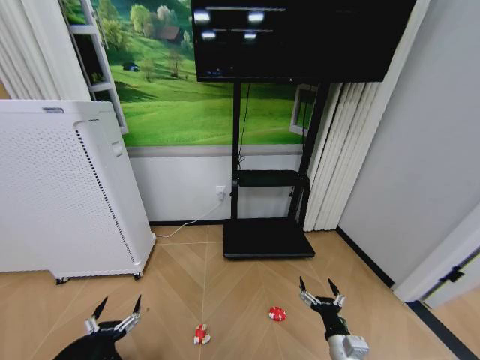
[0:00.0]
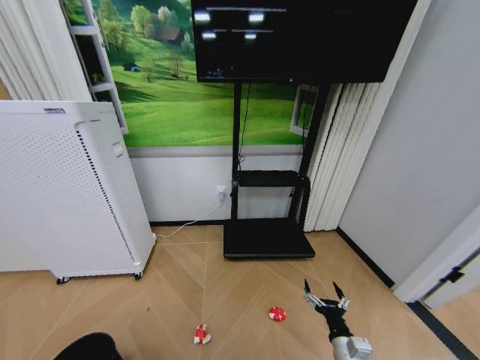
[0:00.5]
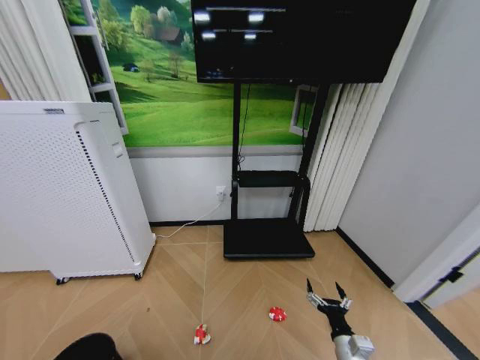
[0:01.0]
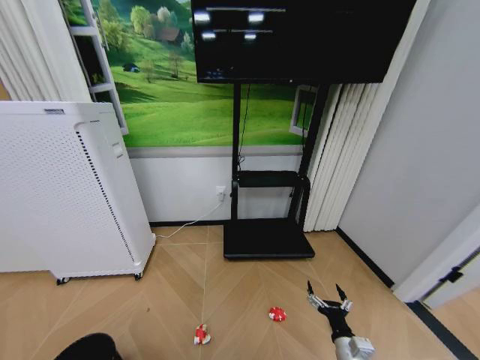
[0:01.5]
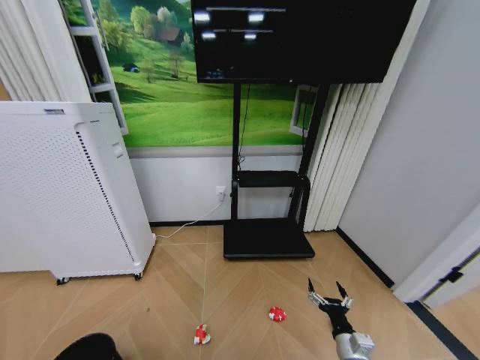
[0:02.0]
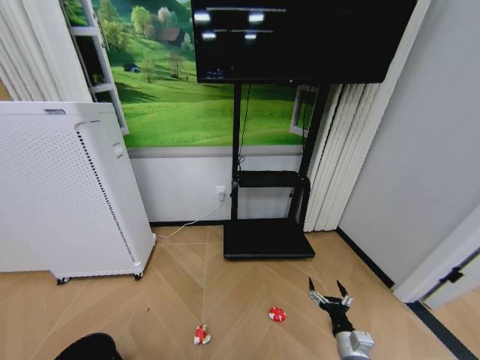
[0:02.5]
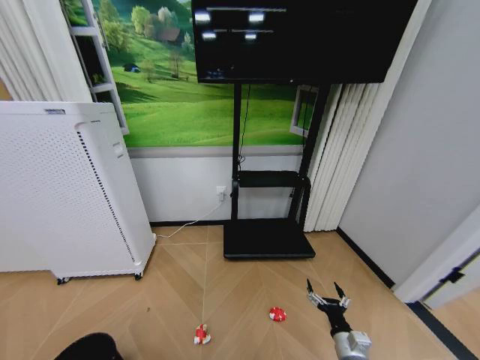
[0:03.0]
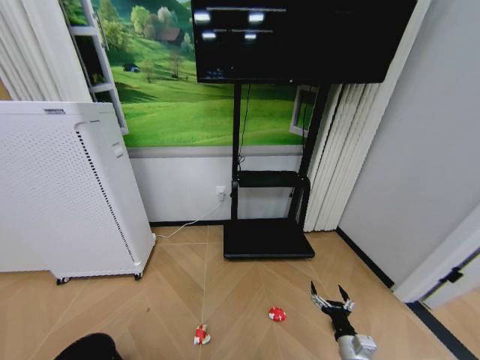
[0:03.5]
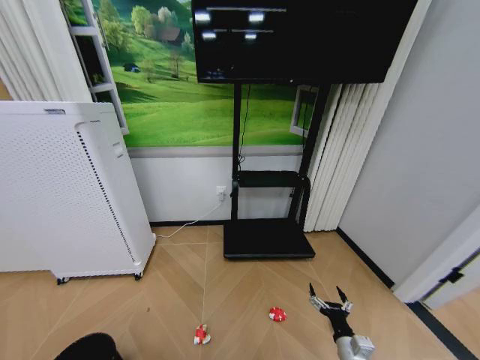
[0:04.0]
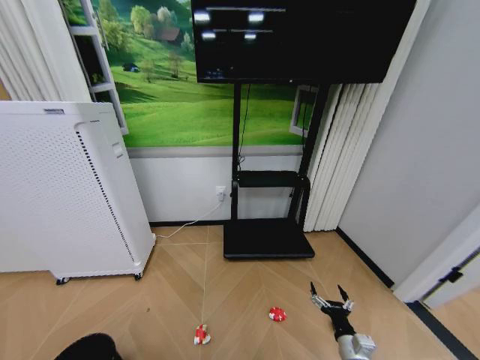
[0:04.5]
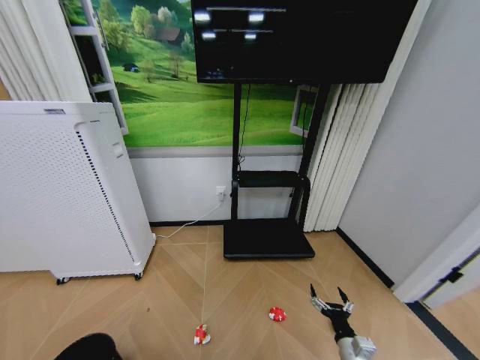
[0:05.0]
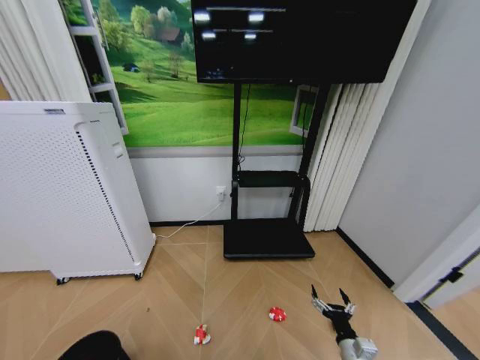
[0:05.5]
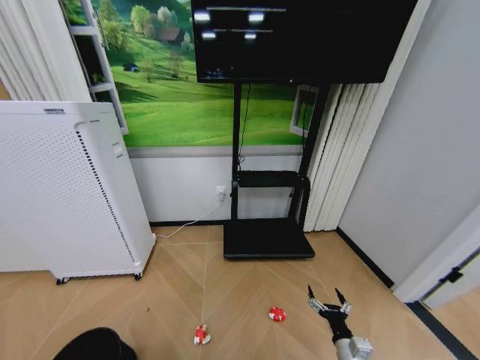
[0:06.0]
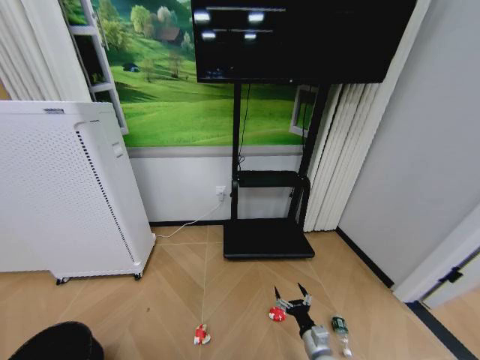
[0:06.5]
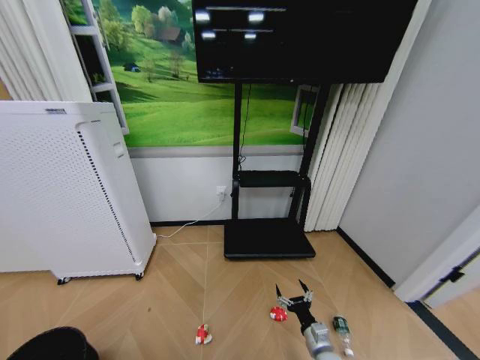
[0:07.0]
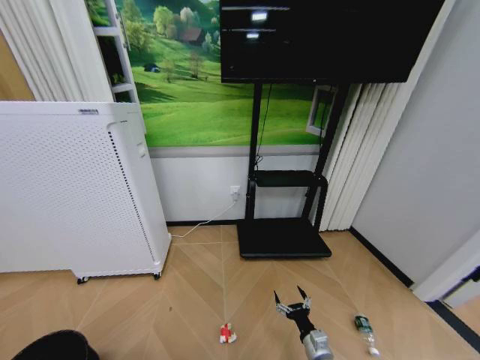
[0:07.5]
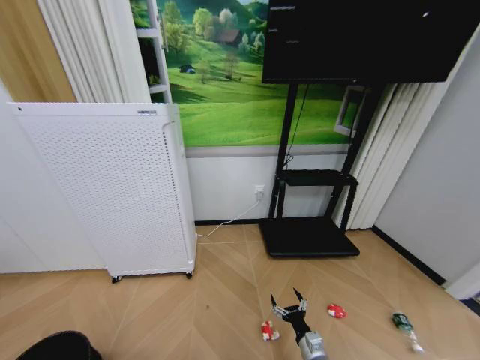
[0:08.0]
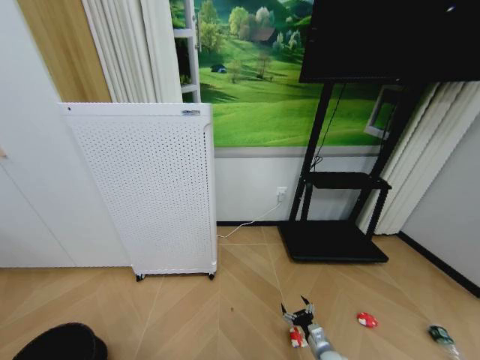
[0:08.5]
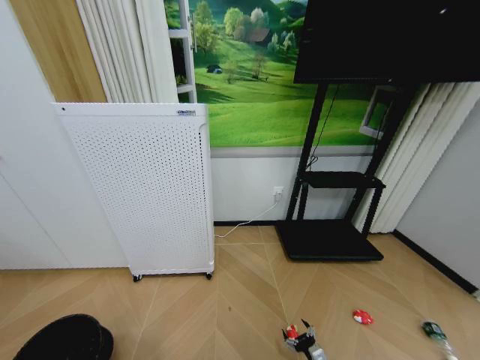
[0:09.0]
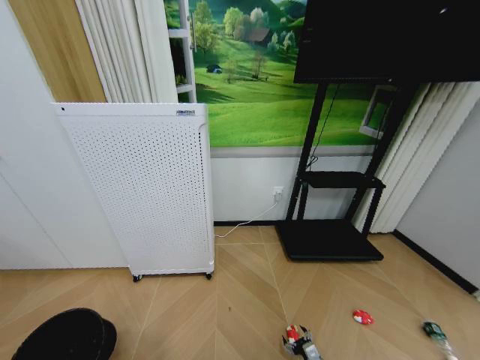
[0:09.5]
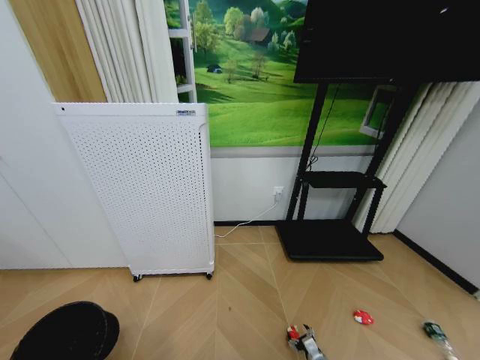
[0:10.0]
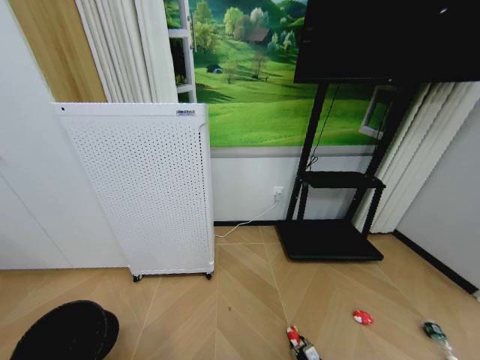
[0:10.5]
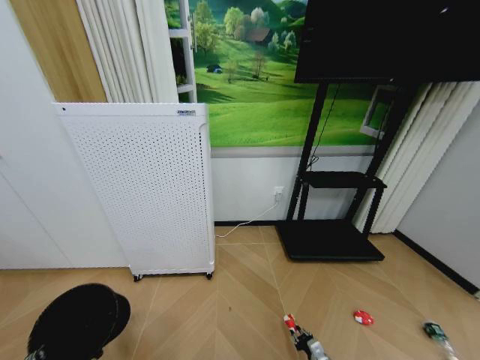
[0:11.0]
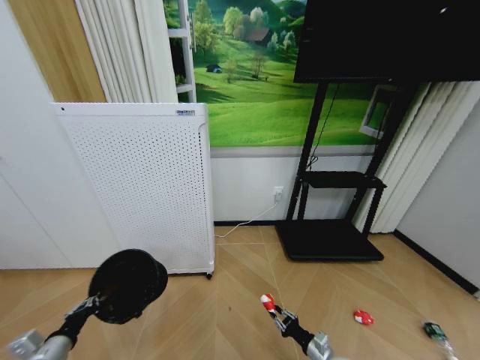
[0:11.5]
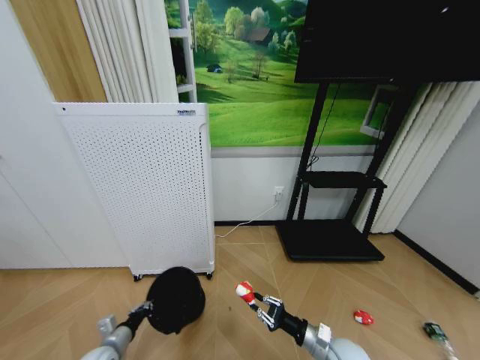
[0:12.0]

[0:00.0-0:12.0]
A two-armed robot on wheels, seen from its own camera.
Task of the whole recording: Pick up the trash bin and place the garbage on the floor into it.
0:00.0 to 0:02.0: The left gripper is displaced backward by approximately 10 cm.
0:04.0 to 0:06.0: The left gripper goes approximately 10 cm downward and forward, and closes.
0:06.0 to 0:08.0: The right gripper shifts about 5 cm to the left.
0:08.0 to 0:10.0: The left gripper shifts by roughly 5 cm. The right gripper goes approximately 20 cm downward and to the right.
0:10.0 to 0:12.0: The right gripper travels upward by approximately 25 cm, and closes its fingers. Meanwhile the left gripper travels forward and to the right by about 25 cm.

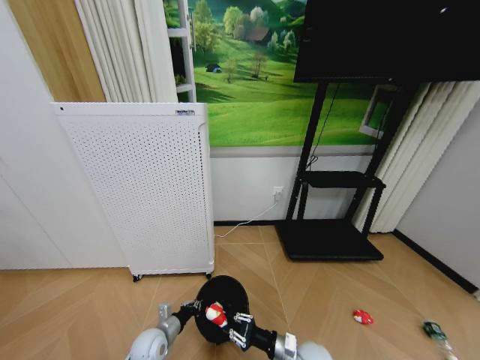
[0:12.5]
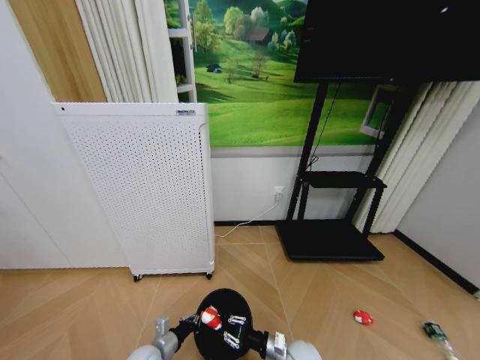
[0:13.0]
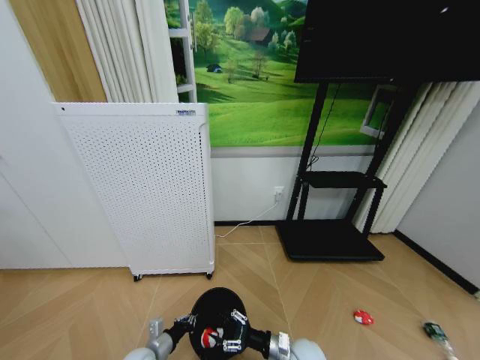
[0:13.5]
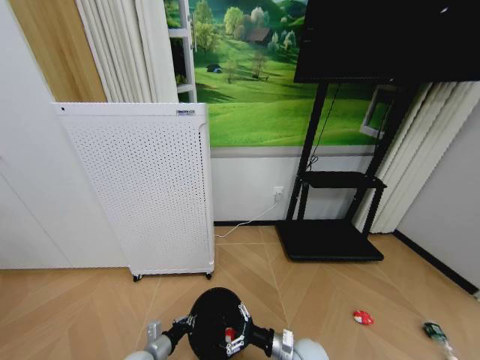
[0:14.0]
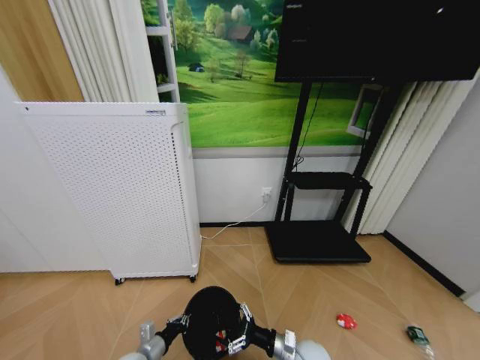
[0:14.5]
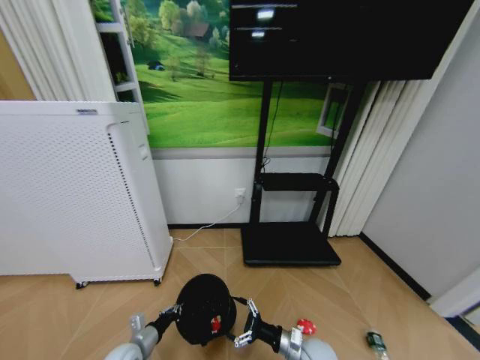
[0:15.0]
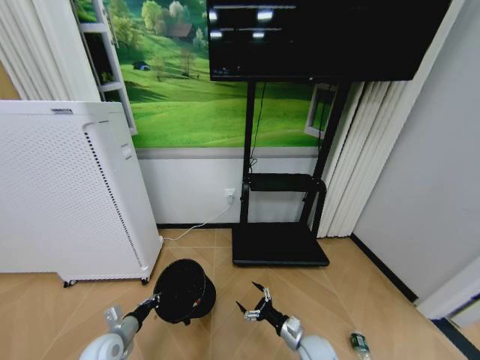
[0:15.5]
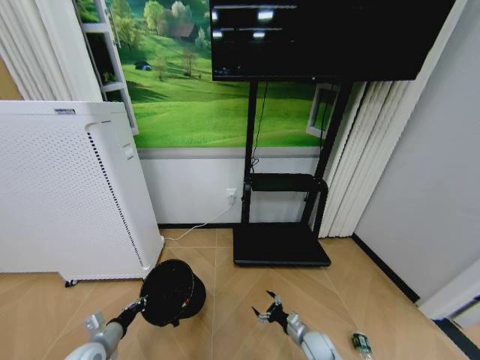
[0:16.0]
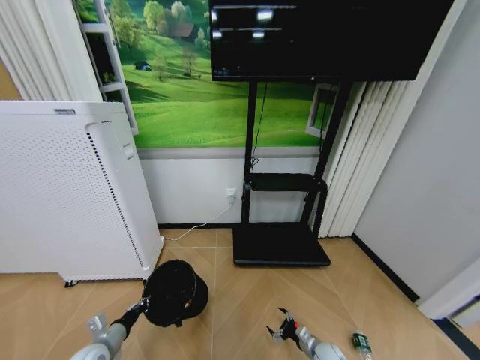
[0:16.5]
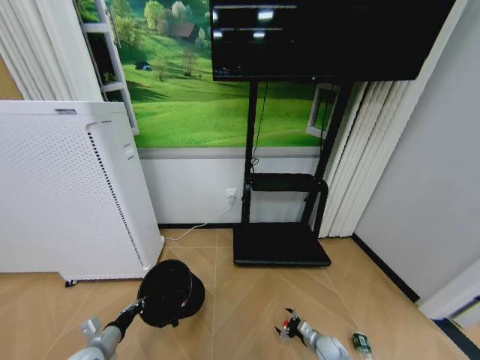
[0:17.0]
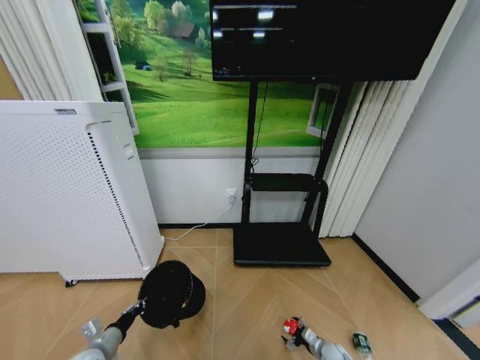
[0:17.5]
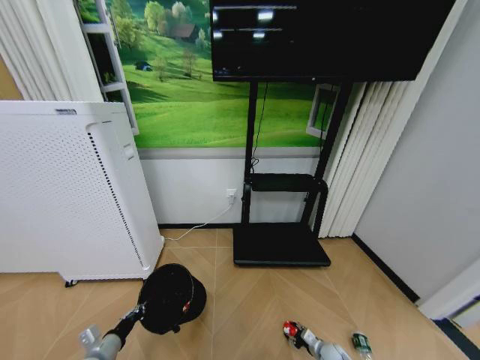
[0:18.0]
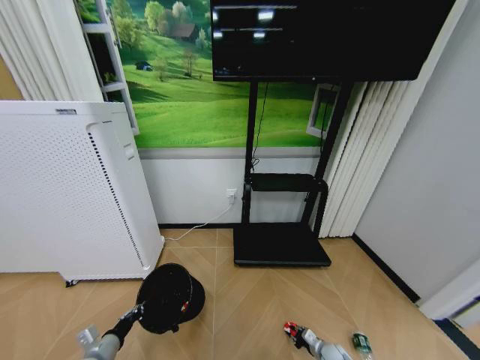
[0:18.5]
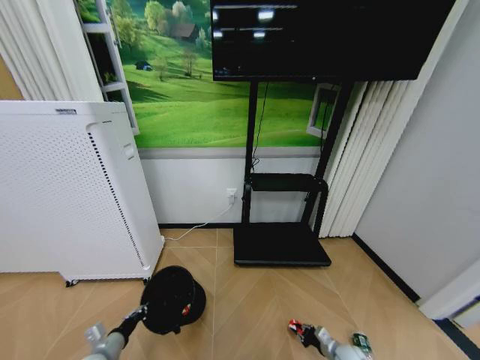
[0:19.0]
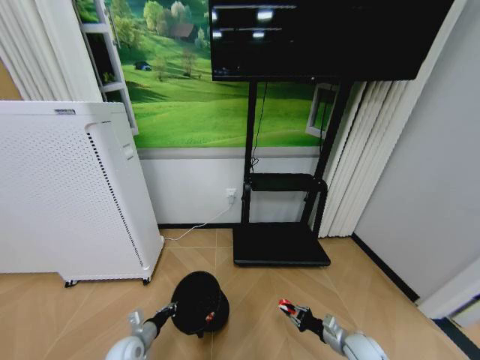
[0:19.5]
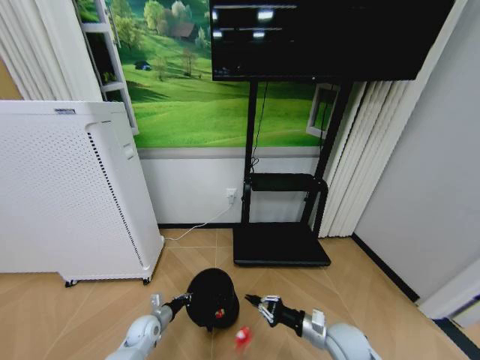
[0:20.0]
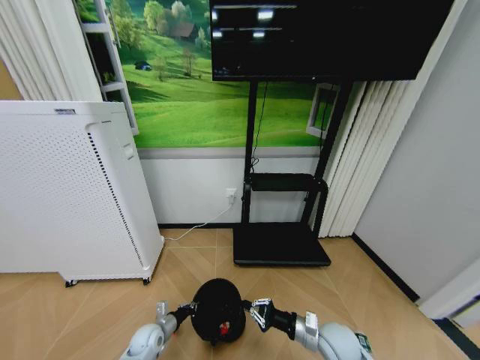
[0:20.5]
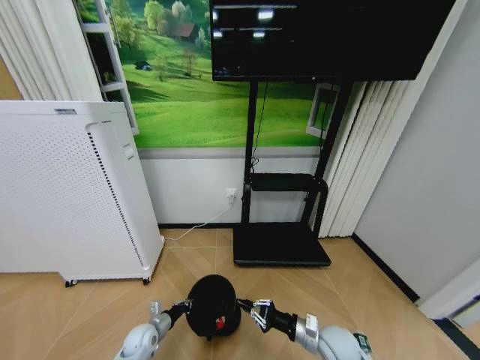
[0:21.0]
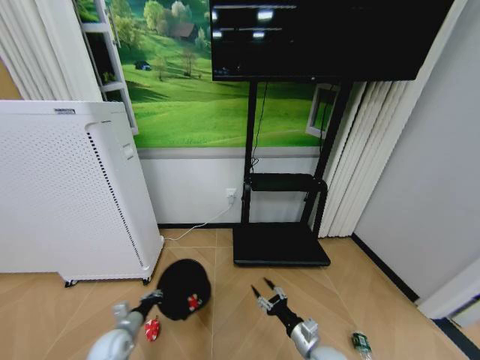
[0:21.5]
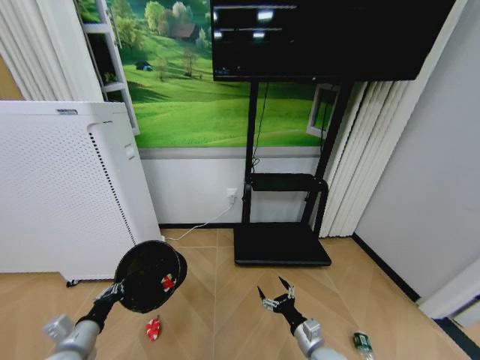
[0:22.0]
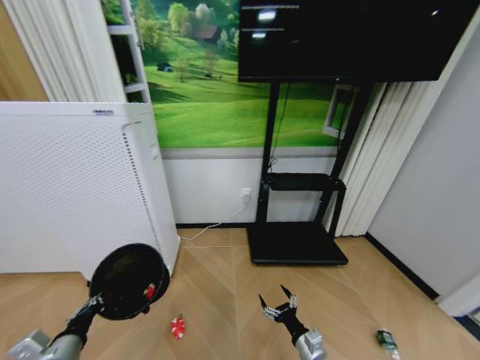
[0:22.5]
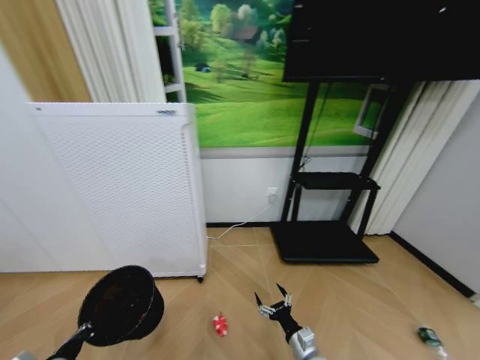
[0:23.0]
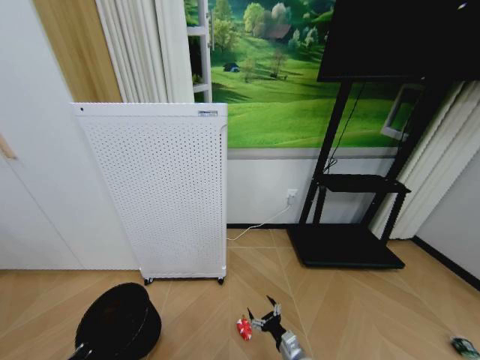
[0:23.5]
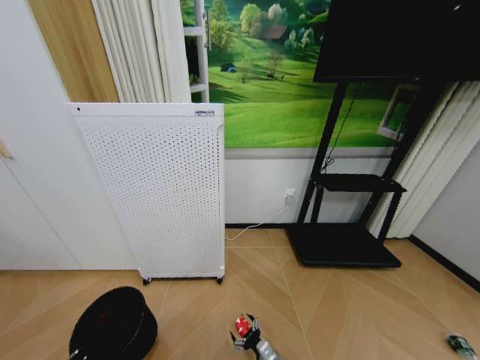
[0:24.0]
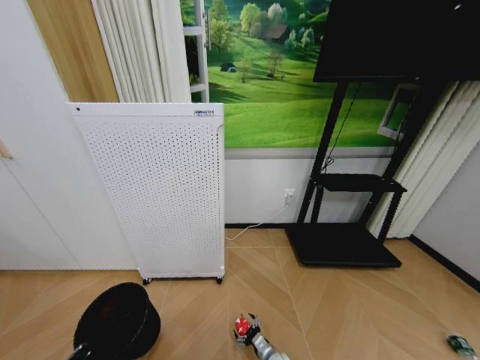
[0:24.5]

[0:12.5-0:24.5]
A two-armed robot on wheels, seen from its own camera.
Task of the whole recording: Pick up the trash bin and place the garbage on the floor into it.
0:12.5 to 0:14.5: The left gripper goes about 5 cm backward. The right gripper opens up.
0:14.5 to 0:16.5: The left gripper goes approximately 10 cm to the left; the right gripper is displaced to the right and downward by approximately 15 cm.
0:16.5 to 0:18.5: The right gripper moves downward, roughly 5 cm, and closes up.
0:18.5 to 0:20.5: The left gripper is displaced forward, to the right and downward by some 20 cm. The right gripper heads upward and to the left, covering roughly 30 cm.
0:20.5 to 0:22.5: The right gripper heads downward and backward, covering approximately 10 cm, and opens its fingers; the left gripper goes about 30 cm upward, backward and to the left.
0:22.5 to 0:24.5: The left gripper goes some 5 cm downward. Meanwhile the right gripper is displaced downward and to the left by some 20 cm.

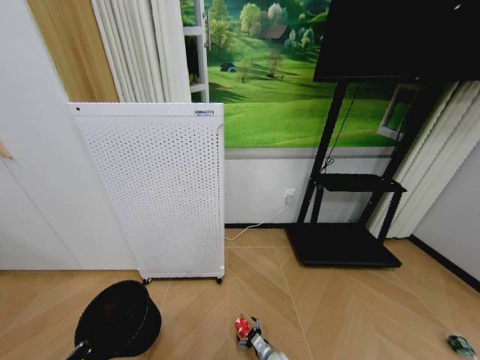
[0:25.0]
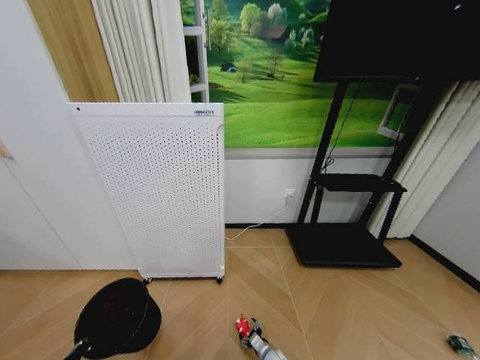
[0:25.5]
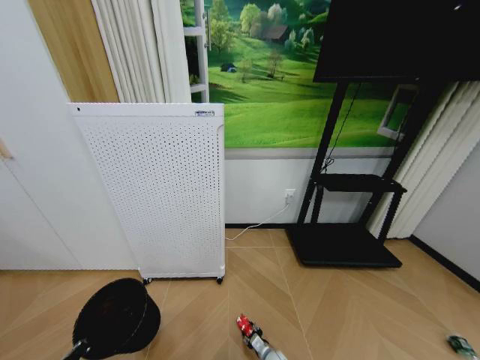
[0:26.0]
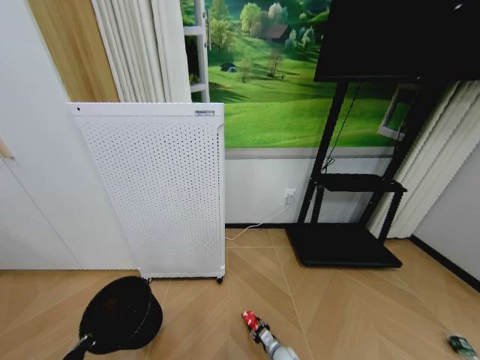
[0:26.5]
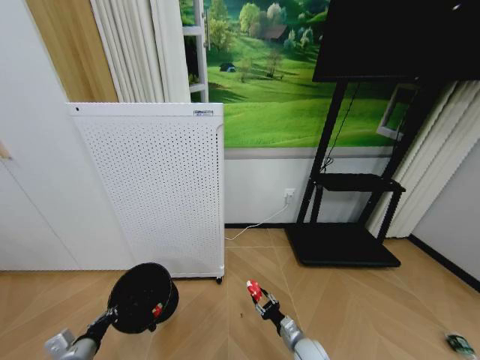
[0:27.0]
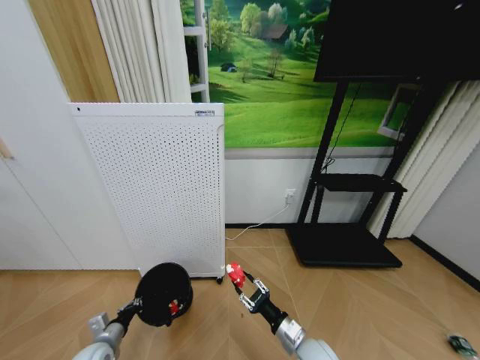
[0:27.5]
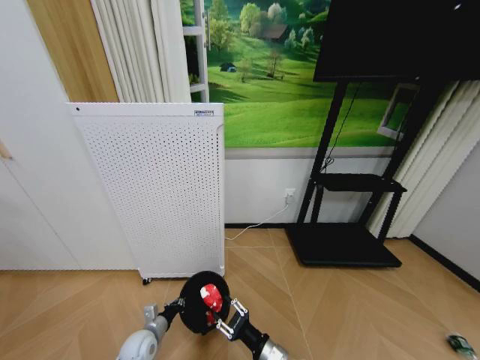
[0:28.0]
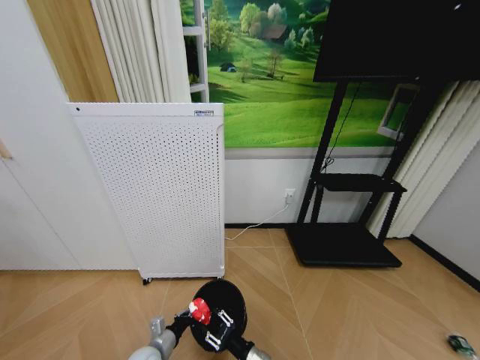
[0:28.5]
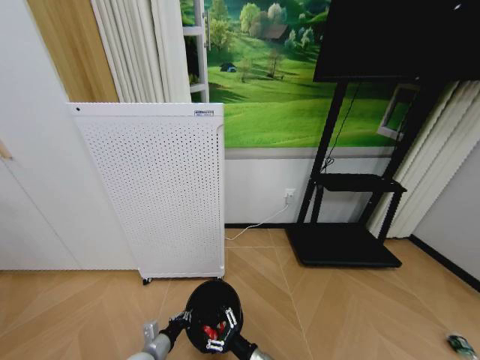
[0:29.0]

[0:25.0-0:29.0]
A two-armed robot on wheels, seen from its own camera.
Task of the whole recording: Pick up the trash bin and place the garbage on the floor into it.
0:25.0 to 0:27.0: The right gripper heads upward and to the right, covering about 15 cm, and closes up. Meanwhile the left gripper goes approximately 5 cm forward.
0:27.0 to 0:29.0: The right gripper travels to the left, backward and upward by approximately 15 cm. The left gripper heads to the right and downward, covering roughly 15 cm.
